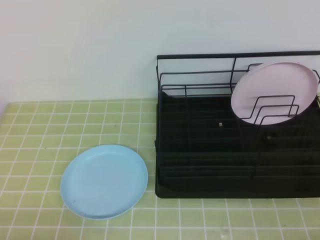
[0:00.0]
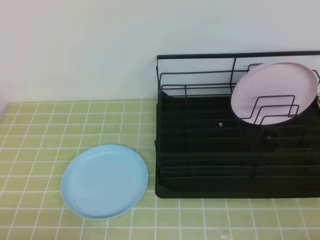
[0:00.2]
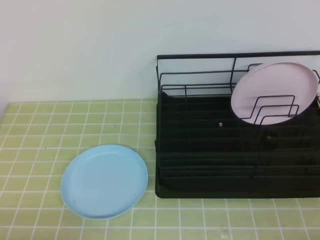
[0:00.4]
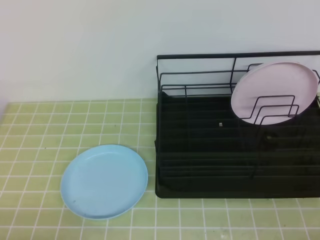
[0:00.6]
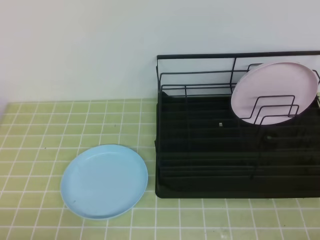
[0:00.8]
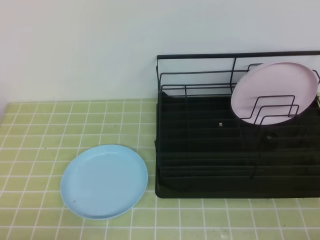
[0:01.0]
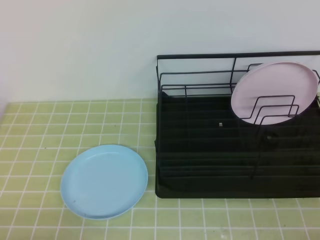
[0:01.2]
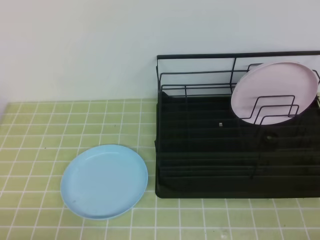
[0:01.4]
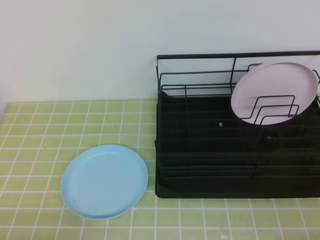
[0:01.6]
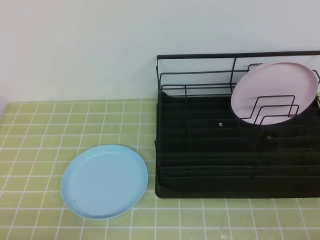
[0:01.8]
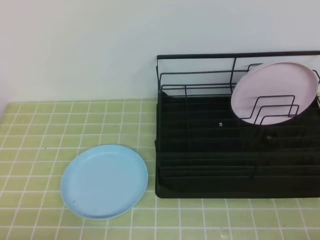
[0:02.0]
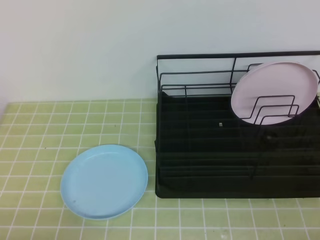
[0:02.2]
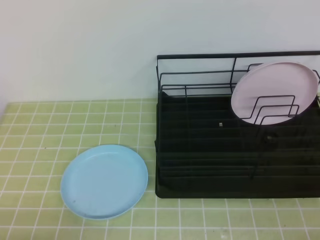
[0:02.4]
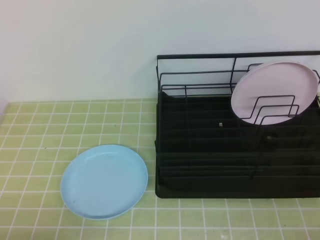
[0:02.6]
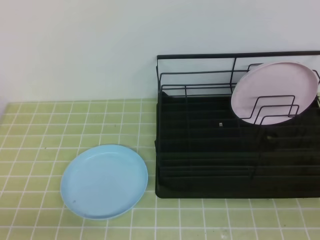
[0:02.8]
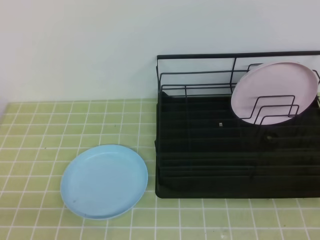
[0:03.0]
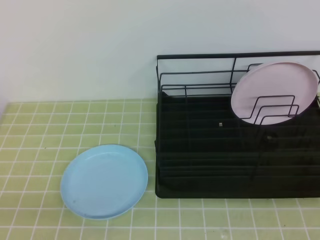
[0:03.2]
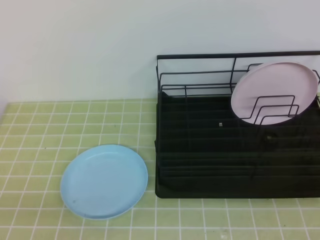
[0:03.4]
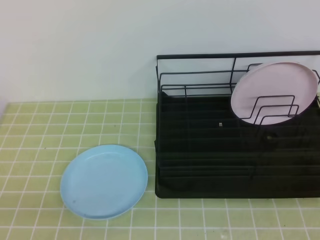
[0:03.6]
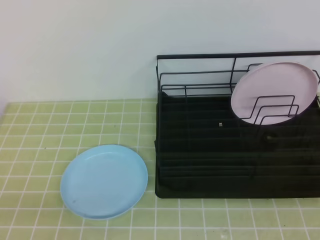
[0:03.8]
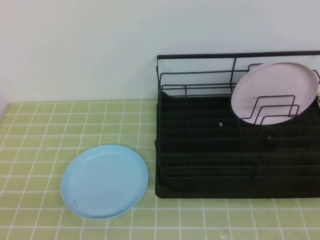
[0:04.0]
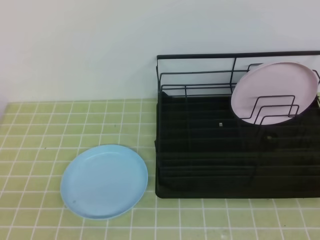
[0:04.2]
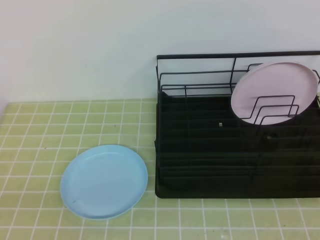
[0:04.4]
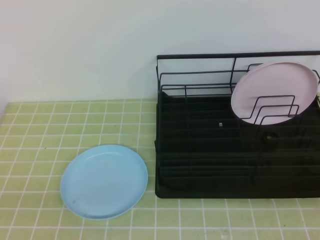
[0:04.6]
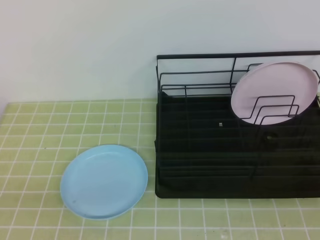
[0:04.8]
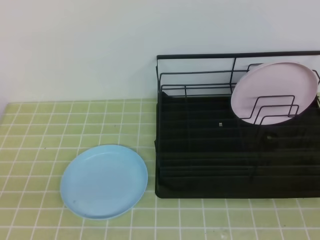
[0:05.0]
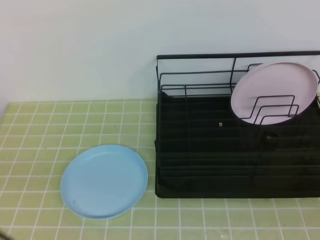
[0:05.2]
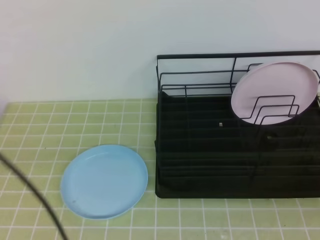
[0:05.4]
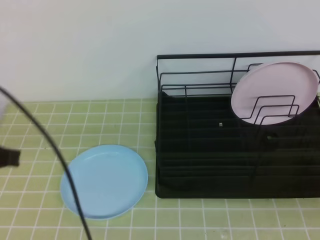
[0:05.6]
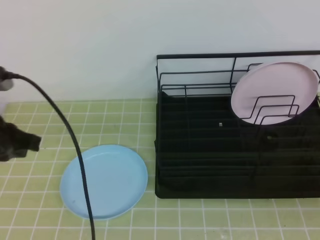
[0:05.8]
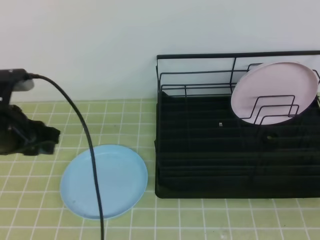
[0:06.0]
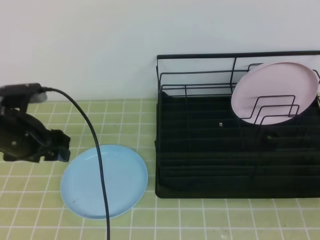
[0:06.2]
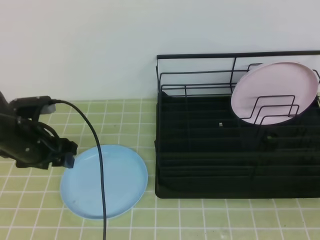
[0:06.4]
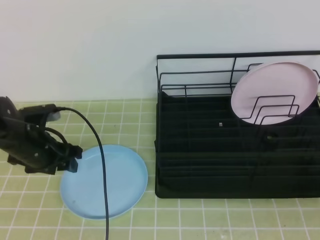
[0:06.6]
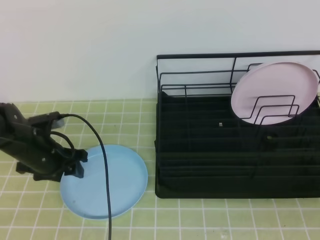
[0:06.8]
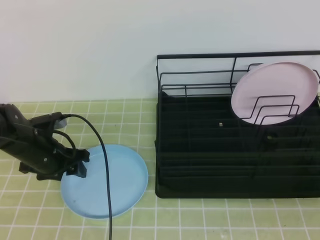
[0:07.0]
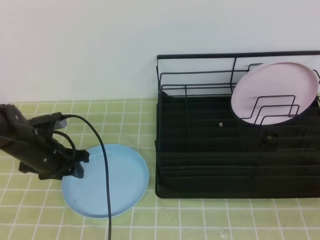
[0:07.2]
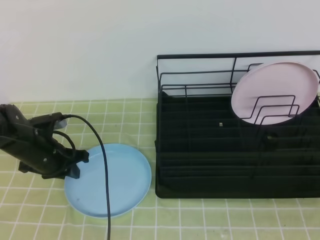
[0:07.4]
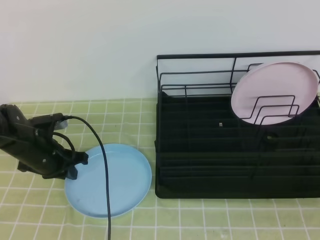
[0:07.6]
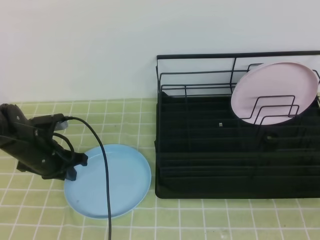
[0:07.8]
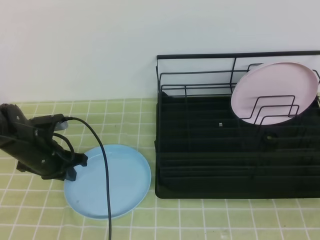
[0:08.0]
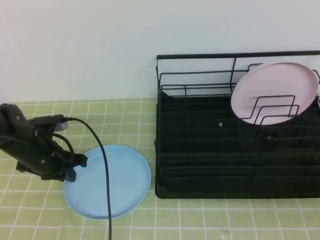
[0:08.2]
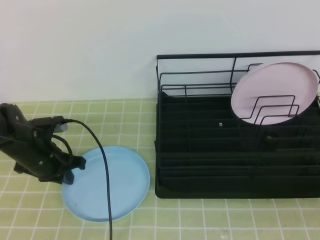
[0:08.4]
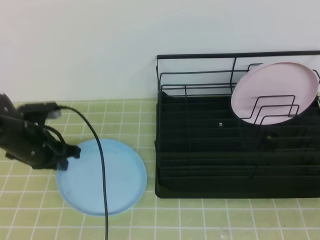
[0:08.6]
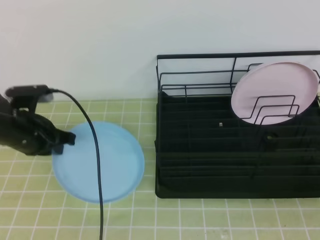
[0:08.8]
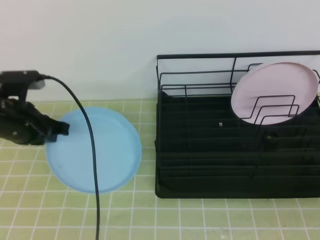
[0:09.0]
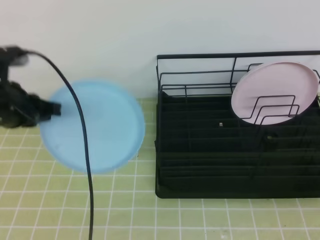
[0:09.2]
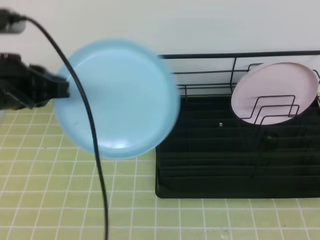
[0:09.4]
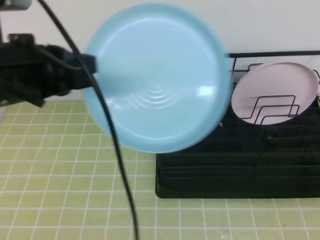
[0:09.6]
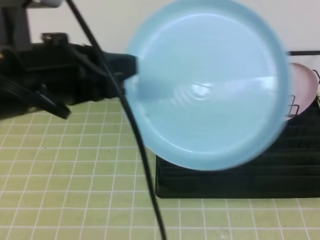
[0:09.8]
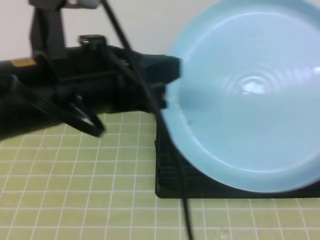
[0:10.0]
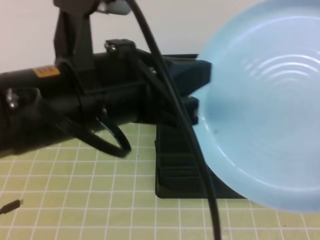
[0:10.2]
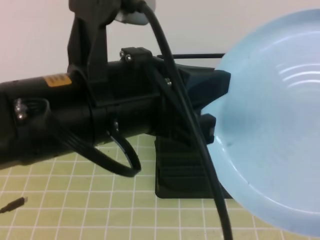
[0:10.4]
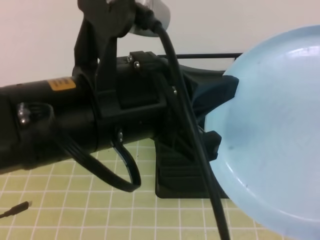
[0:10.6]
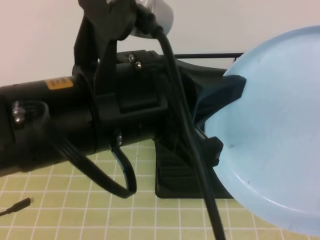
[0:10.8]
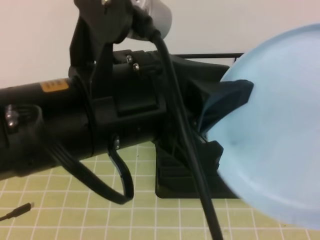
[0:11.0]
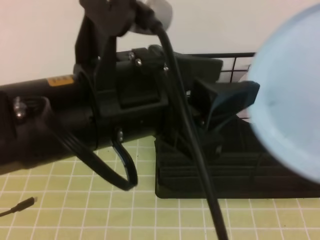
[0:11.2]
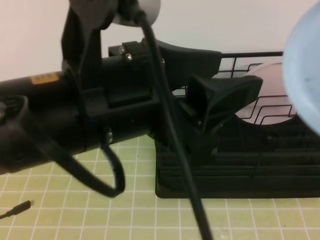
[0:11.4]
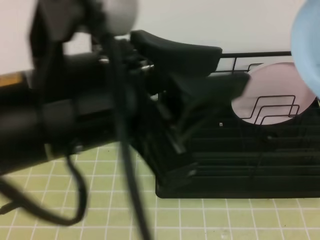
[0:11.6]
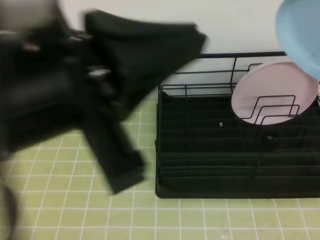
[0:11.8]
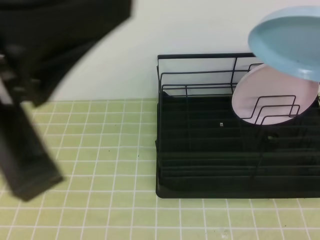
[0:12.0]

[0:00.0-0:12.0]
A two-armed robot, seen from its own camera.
0:00.0 to 0:01.6: The two grippers keep their place.
0:04.4 to 0:06.0: The left gripper heads forward, covering approximately 25 cm, and opens its fingers.
0:06.0 to 0:07.6: The left gripper is displaced downward and forward by about 15 cm, and closes its fingers.
0:07.6 to 0:09.0: The left gripper goes roughly 10 cm upward.
0:09.0 to 0:10.4: The left gripper travels backward, upward and to the right by about 30 cm. The right gripper is displaced upward by some 10 cm, and opens its fingers.
0:10.4 to 0:12.0: The right gripper goes roughly 15 cm forward, and closes up. The left gripper travels backward, to the left and upward by some 10 cm, and opens, then closes once more.

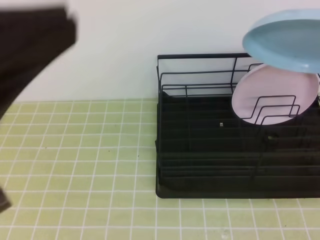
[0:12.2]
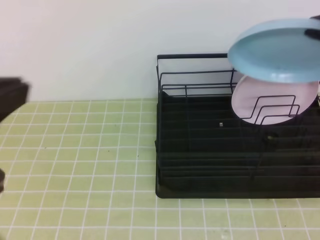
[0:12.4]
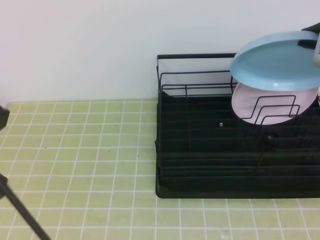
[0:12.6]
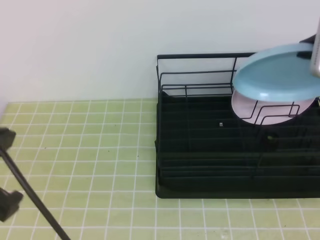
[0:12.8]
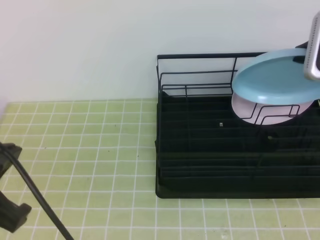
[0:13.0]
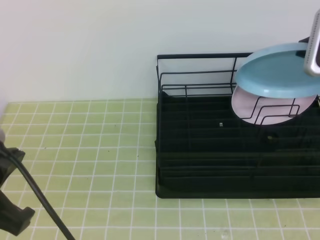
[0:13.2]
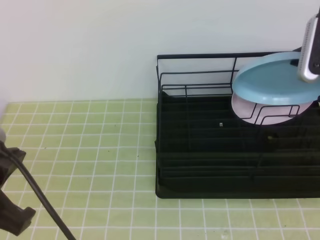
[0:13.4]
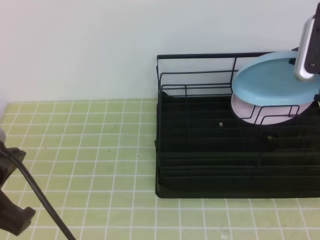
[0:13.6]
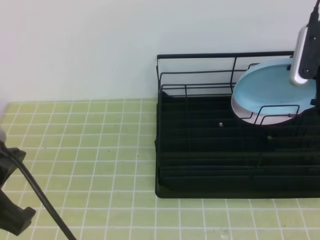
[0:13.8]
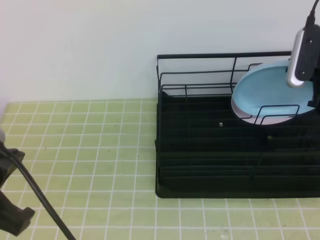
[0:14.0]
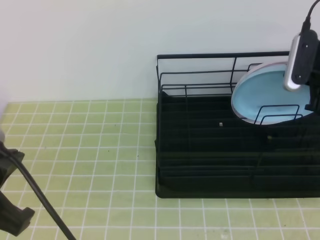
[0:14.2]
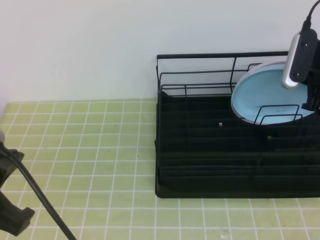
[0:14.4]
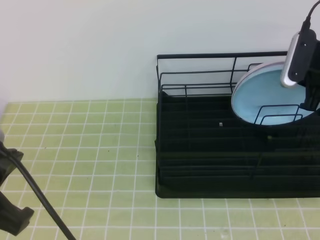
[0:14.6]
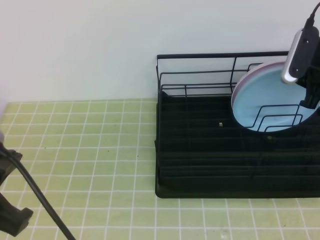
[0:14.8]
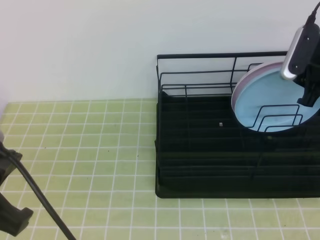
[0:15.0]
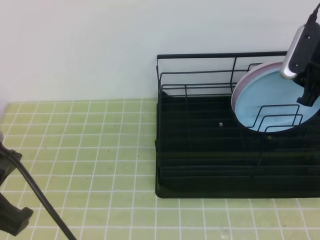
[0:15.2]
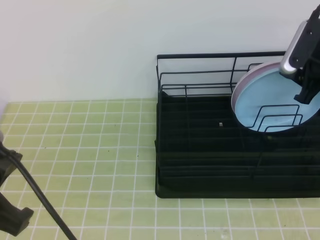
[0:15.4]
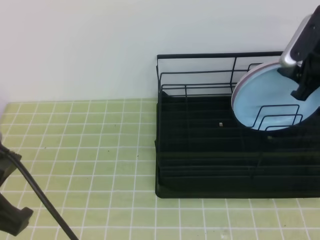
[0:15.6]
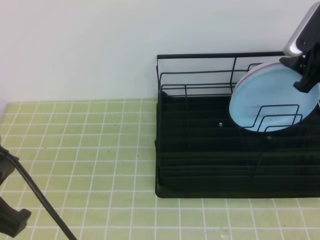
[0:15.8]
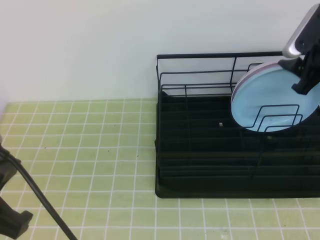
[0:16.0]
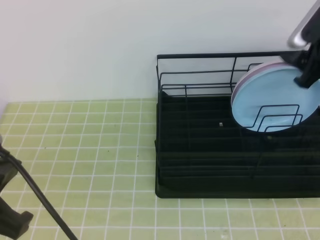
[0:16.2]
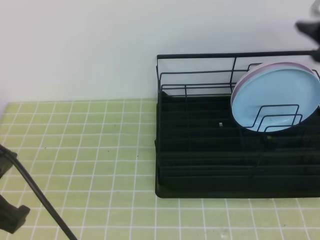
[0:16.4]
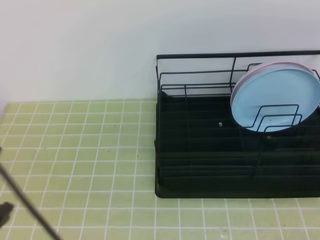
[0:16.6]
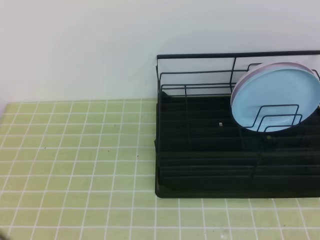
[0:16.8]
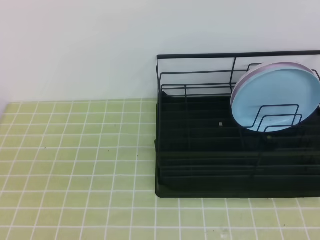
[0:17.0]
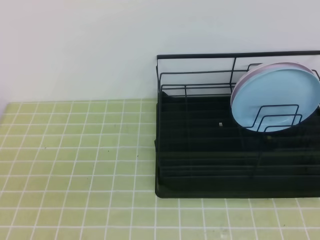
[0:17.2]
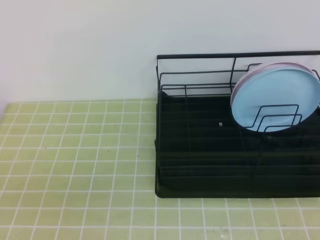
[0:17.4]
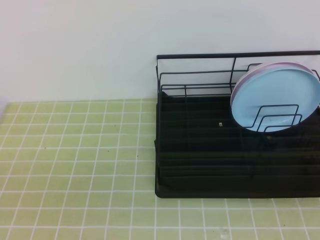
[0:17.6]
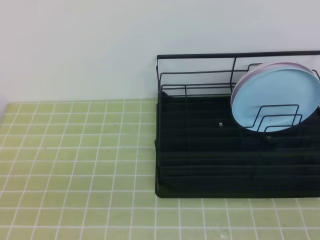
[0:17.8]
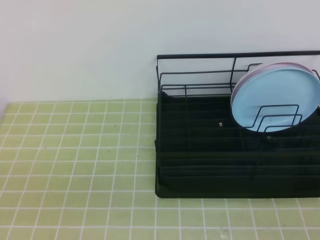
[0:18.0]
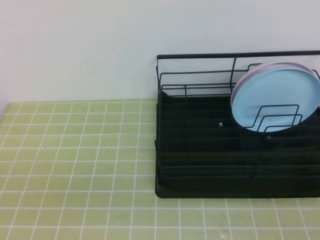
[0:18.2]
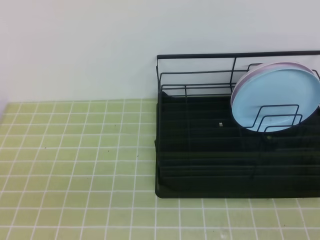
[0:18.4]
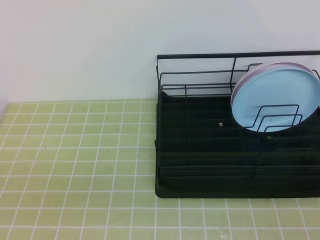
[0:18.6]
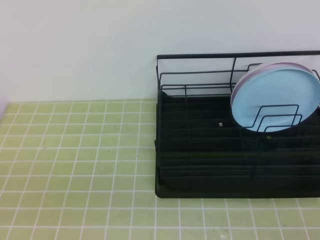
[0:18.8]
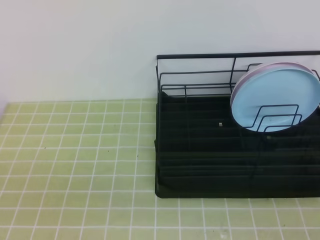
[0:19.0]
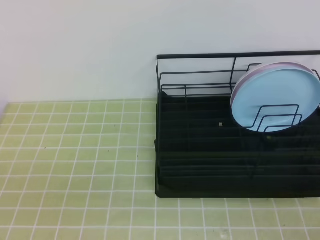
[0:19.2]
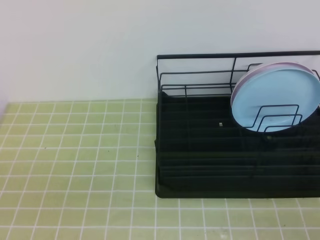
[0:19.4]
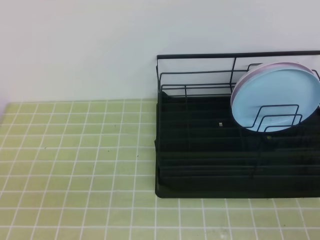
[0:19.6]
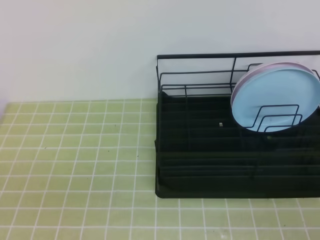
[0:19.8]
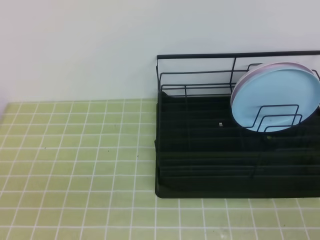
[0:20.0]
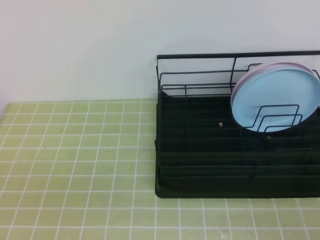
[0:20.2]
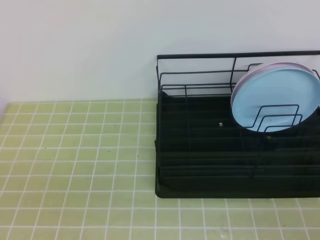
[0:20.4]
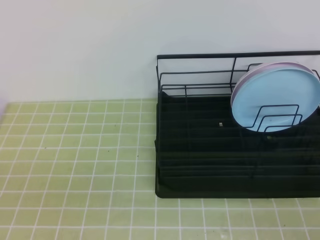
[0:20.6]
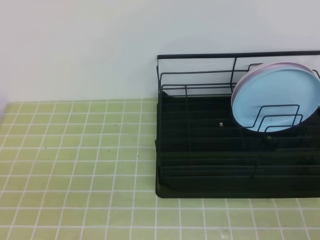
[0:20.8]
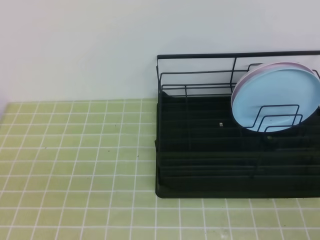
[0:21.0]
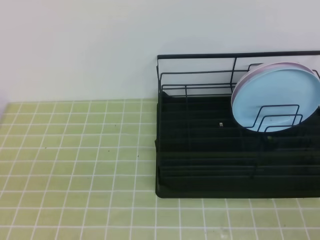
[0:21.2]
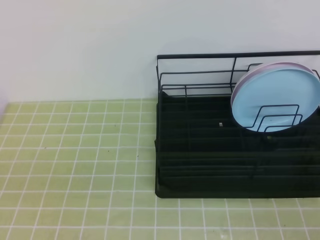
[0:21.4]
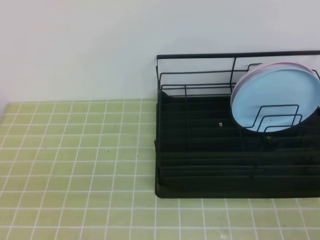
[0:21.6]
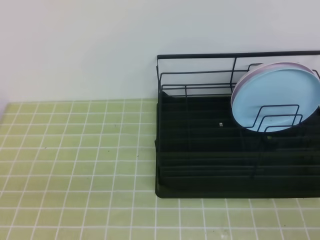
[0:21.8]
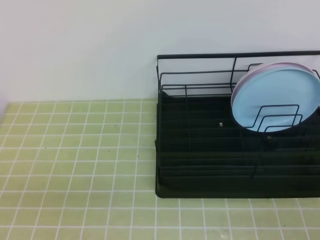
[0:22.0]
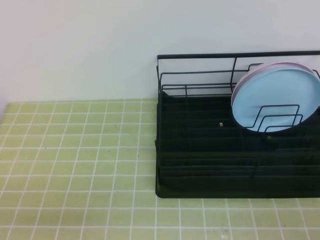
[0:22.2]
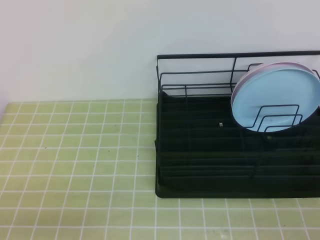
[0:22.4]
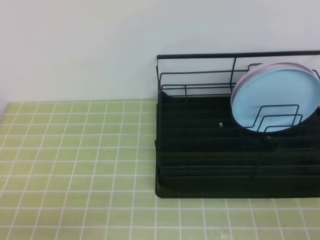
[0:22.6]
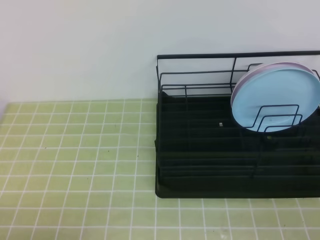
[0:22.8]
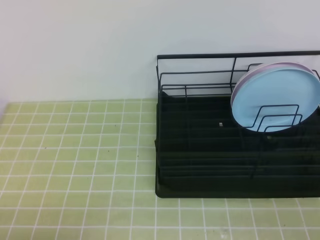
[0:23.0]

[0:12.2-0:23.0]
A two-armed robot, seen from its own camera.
0:12.2 to 0:13.8: The left gripper moves downward, about 10 cm; the right gripper heads forward and downward, covering roughly 15 cm.
0:13.8 to 0:15.2: The right gripper opens.
0:15.2 to 0:16.8: The right gripper shifts about 20 cm upward and backward, and closes.
